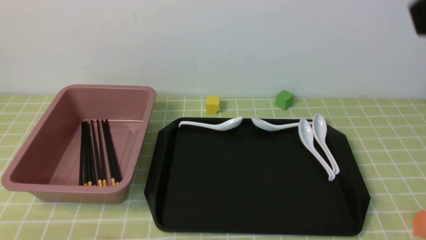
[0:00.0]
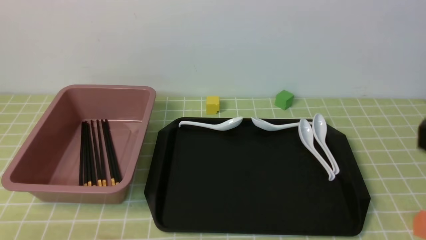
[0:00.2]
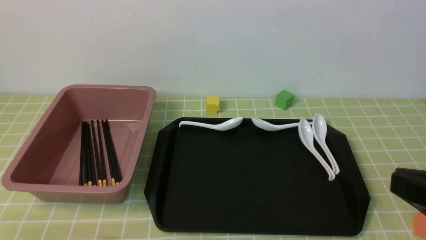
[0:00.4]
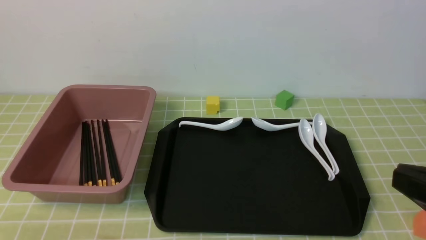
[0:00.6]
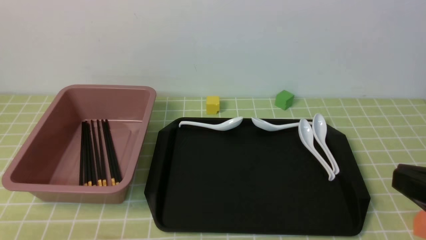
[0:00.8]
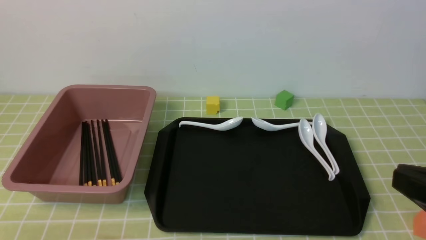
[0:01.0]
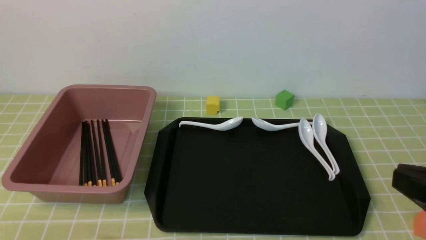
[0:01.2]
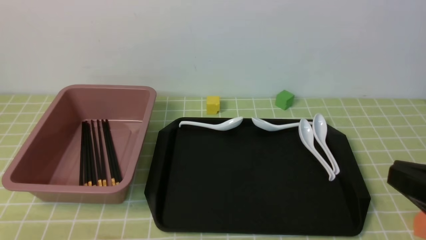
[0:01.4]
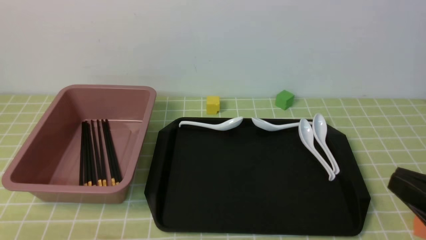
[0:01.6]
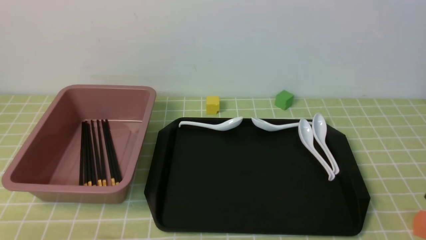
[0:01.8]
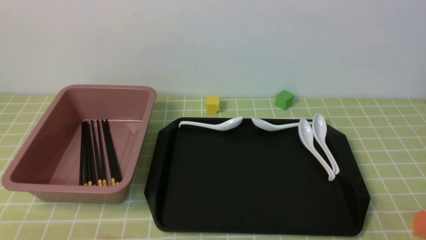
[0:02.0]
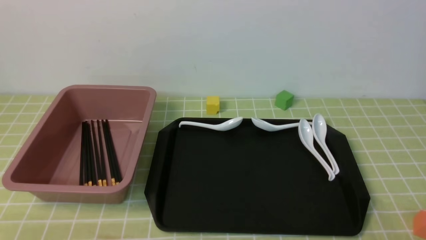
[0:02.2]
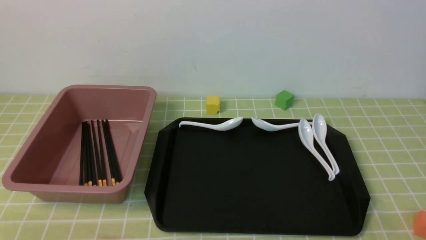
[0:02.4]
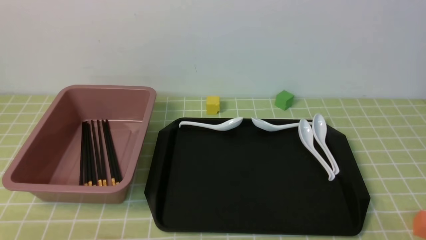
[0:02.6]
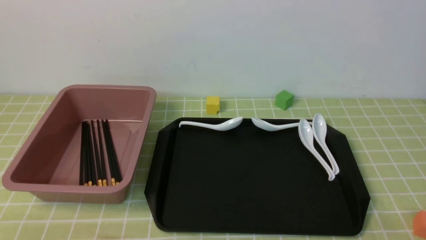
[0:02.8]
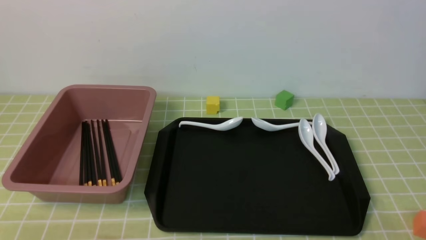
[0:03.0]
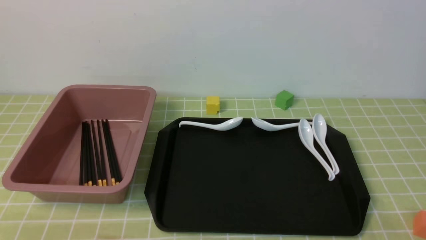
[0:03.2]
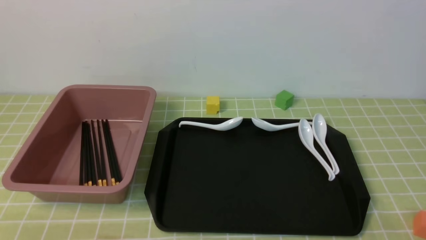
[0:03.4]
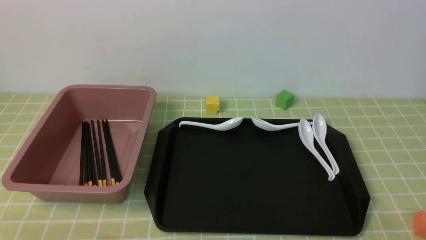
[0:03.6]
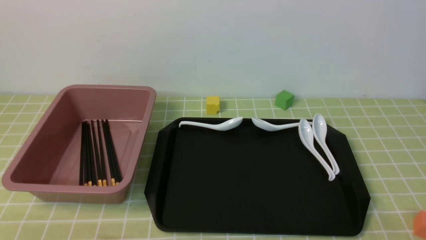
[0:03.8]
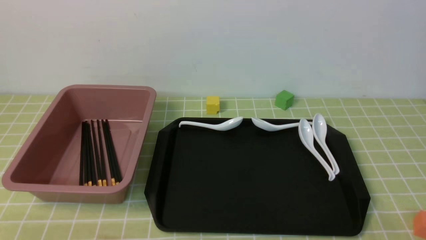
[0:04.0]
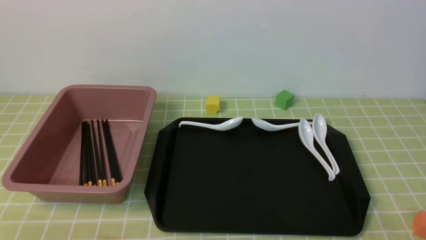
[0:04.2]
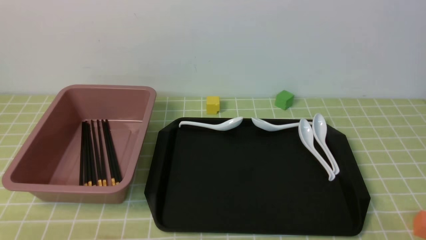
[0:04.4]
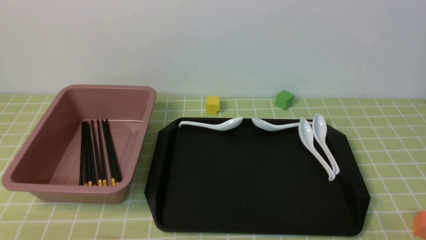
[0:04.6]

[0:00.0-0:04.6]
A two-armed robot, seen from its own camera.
0:00.0 to 0:01.6: The right gripper is displaced downward by roughly 20 cm.
0:01.6 to 0:03.0: The right gripper shifts roughly 10 cm downward.
0:03.0 to 0:04.6: Both grippers stay put.
